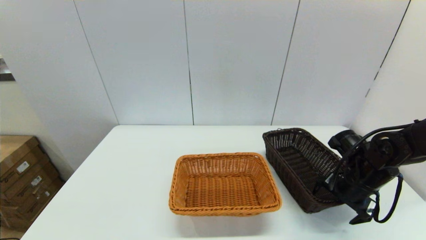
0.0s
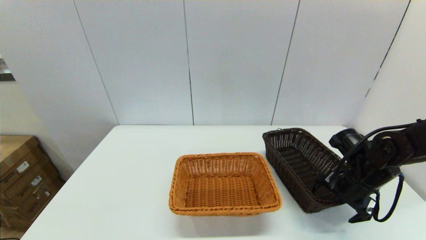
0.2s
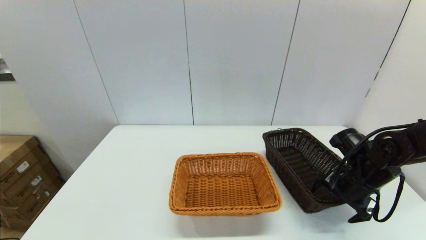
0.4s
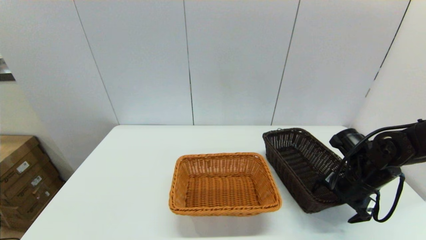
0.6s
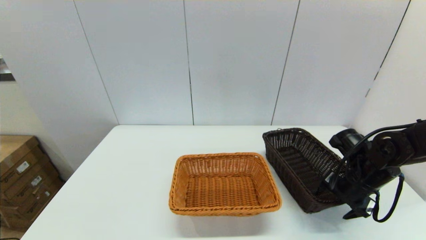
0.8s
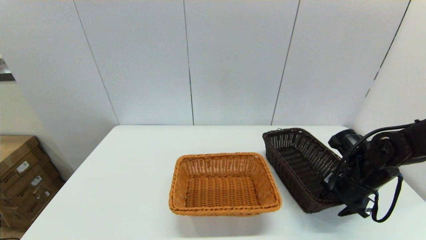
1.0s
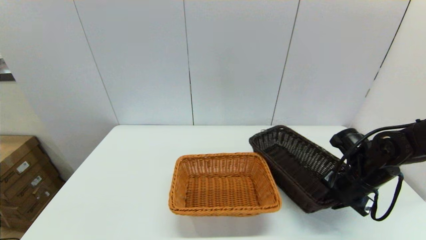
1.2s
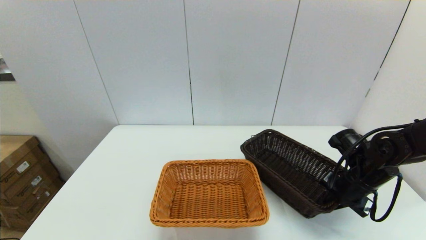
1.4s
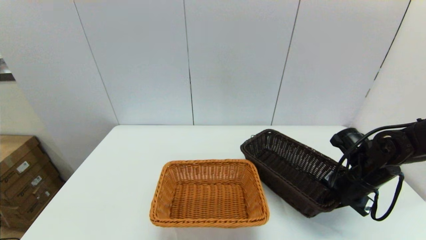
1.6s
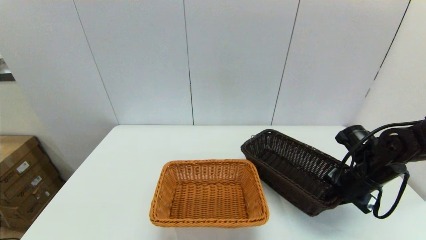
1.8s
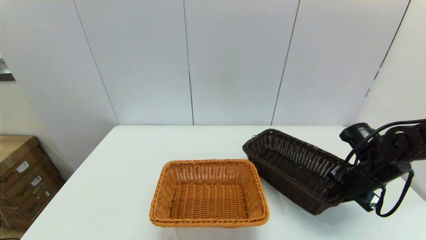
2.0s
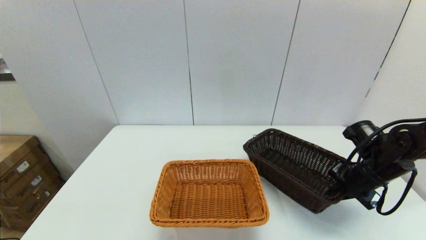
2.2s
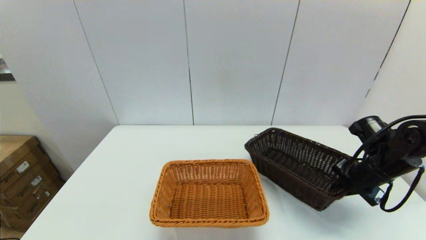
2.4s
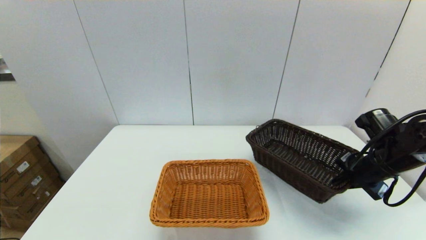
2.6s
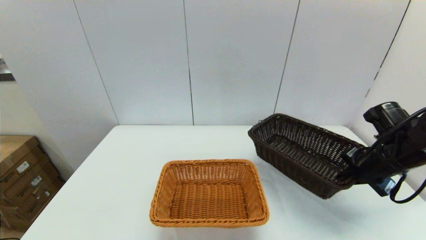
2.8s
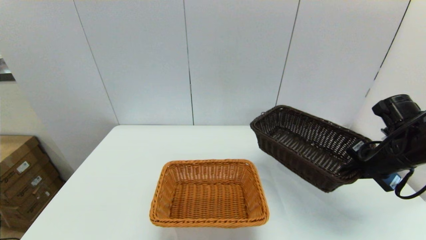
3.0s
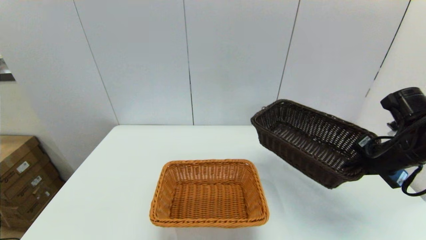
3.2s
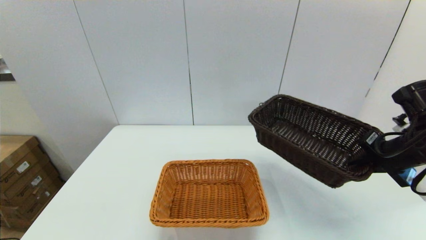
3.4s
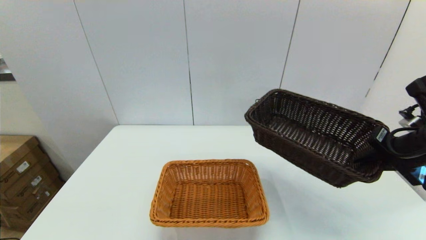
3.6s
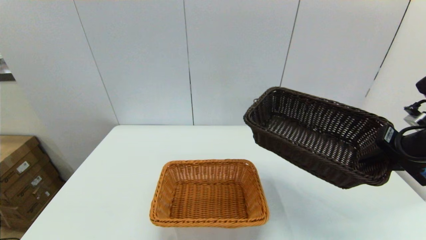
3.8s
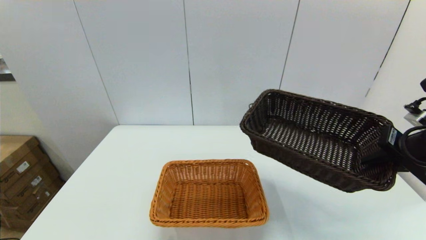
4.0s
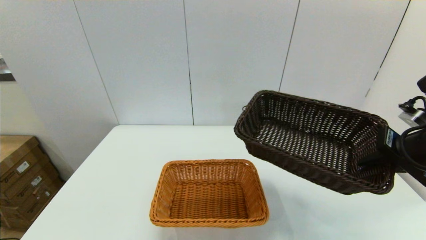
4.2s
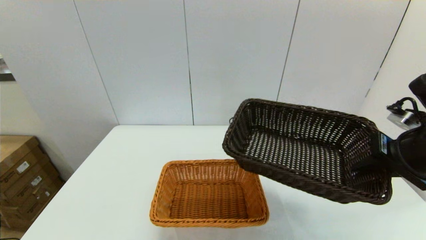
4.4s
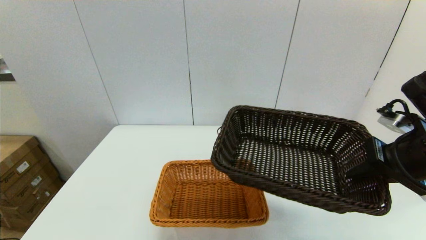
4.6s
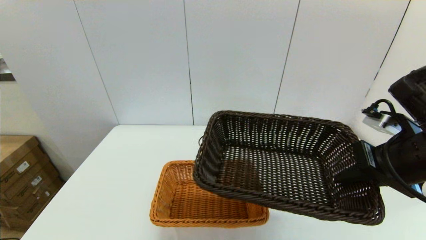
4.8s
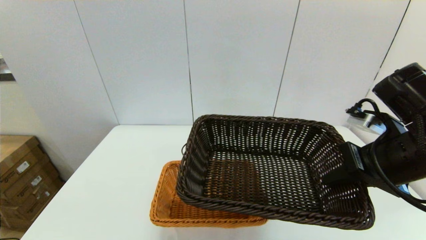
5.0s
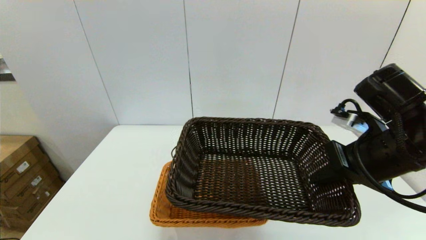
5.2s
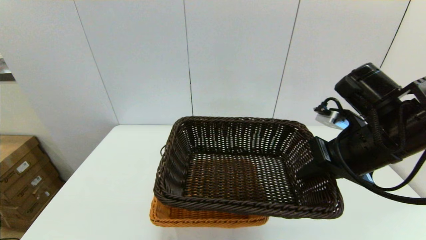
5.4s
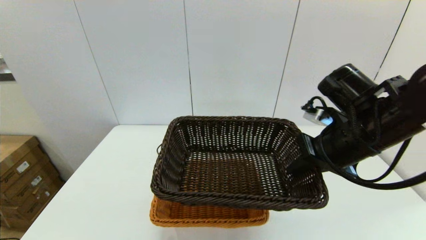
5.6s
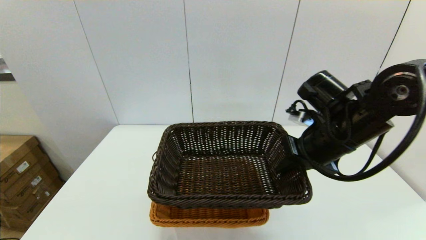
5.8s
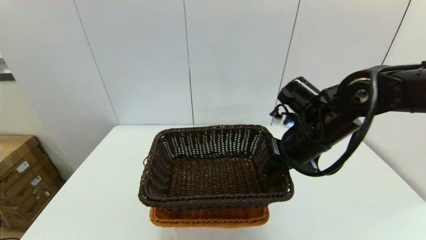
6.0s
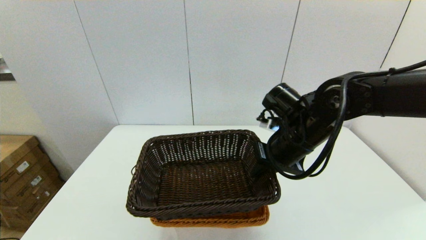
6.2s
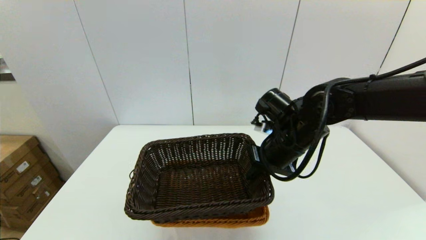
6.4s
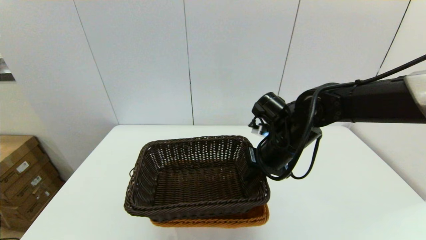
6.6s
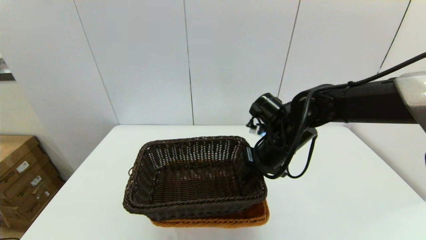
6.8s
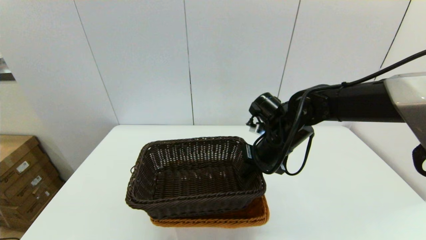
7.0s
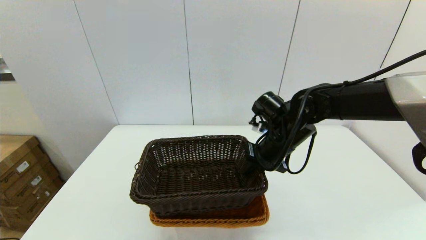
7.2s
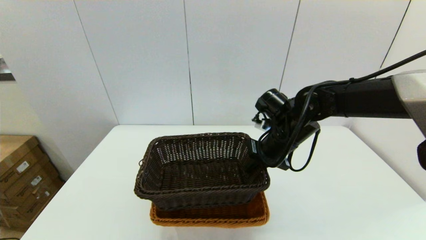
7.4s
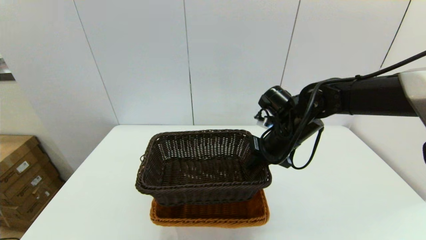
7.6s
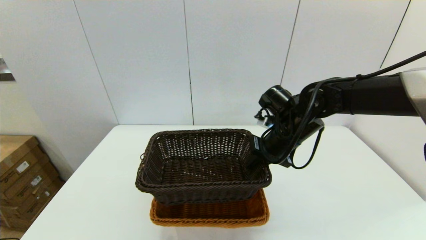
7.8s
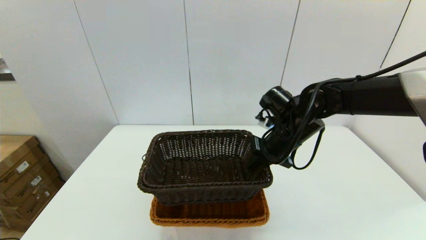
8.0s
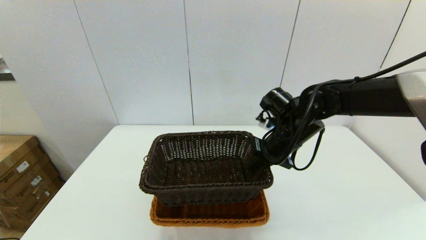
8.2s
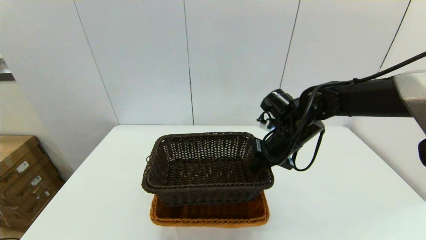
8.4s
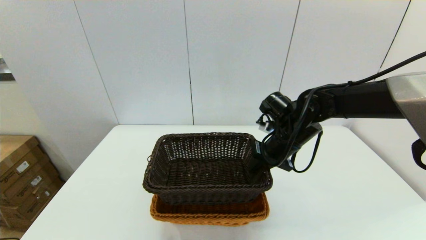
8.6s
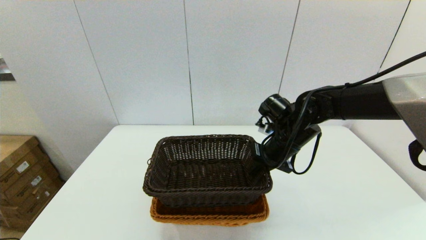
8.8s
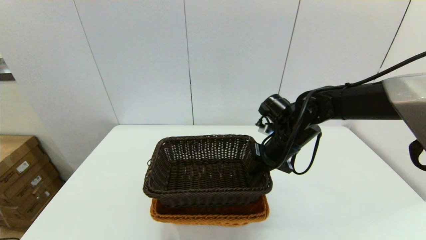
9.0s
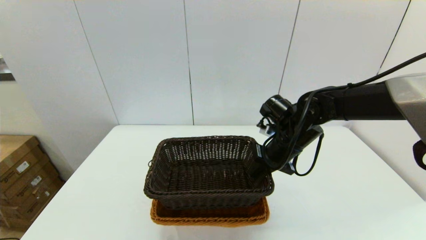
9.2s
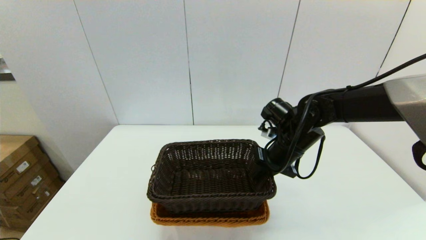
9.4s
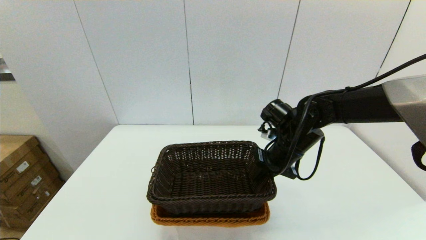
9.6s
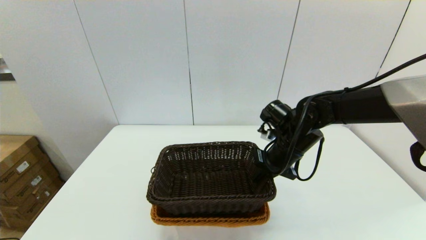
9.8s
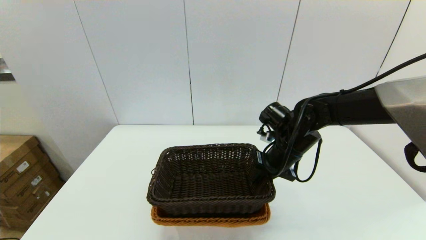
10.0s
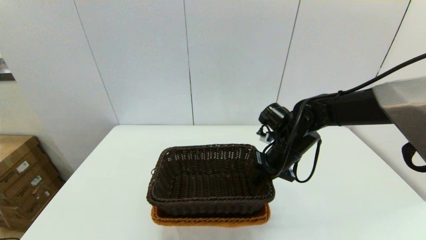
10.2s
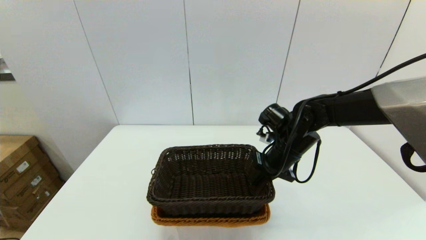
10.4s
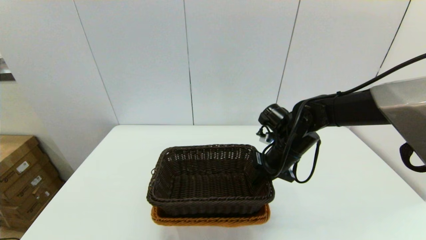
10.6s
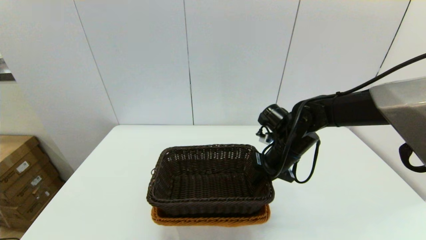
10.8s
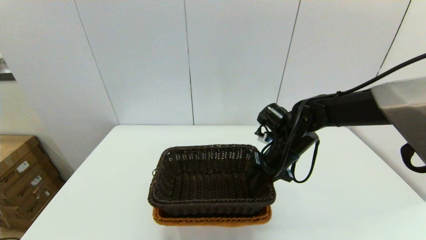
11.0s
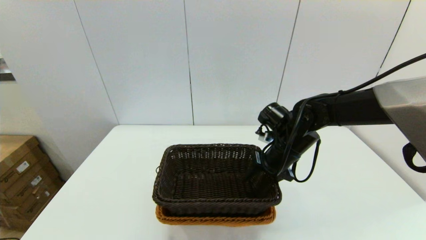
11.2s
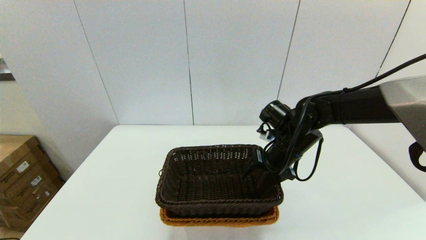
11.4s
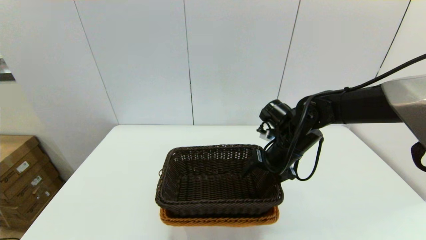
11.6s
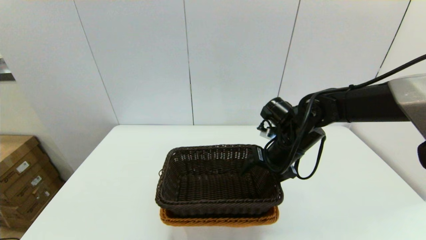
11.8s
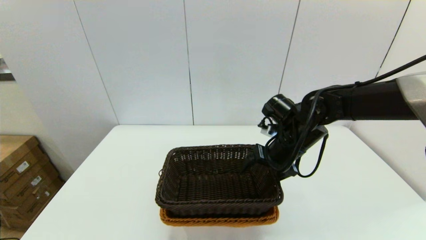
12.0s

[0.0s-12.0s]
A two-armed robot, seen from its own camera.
Task of the whole recording: stack a basket on top of another basket.
0.0s to 1.6s: The right gripper closes up.
1.6s to 3.0s: The right gripper heads upward, covering about 10 cm.
3.0s to 4.4s: The right gripper is displaced upward and backward by roughly 10 cm.
4.4s to 6.0s: The right gripper shifts approximately 15 cm to the left and forward.
6.0s to 7.6s: The right gripper changes place by roughly 5 cm.
7.6s to 10.4s: The grippers make only small movements.
10.4s to 12.0s: The right gripper opens its fingers.

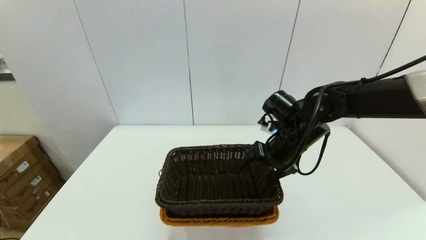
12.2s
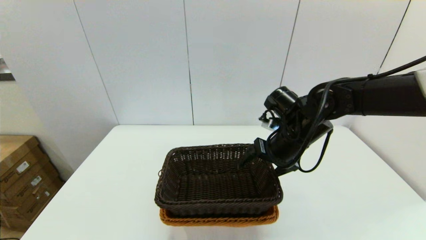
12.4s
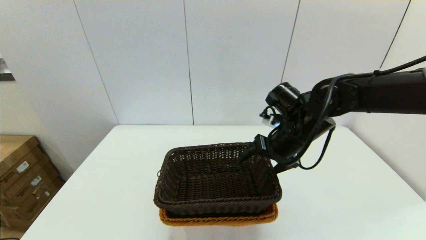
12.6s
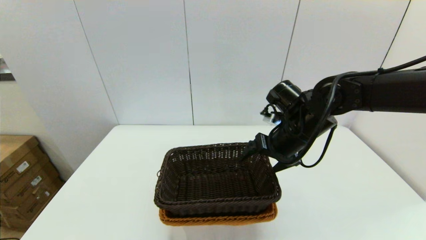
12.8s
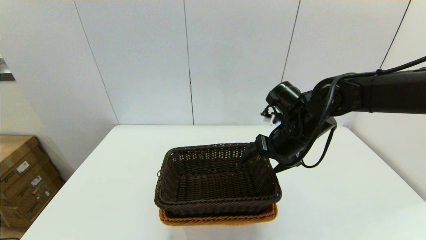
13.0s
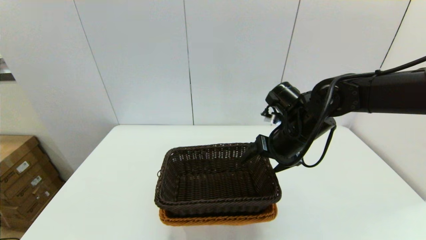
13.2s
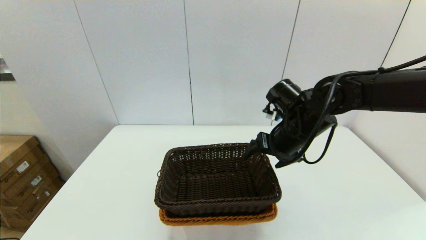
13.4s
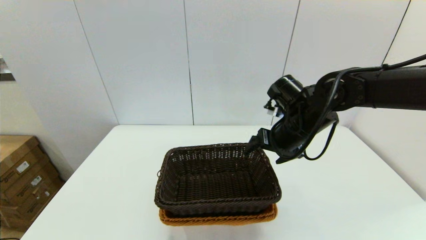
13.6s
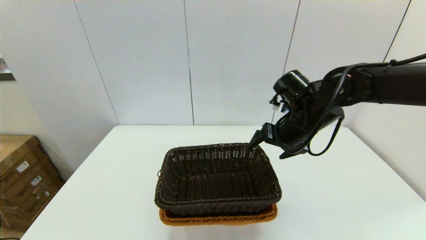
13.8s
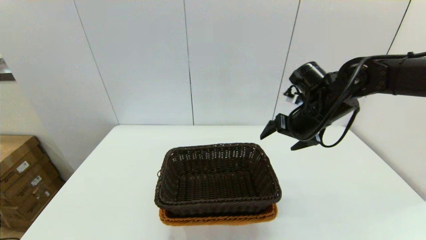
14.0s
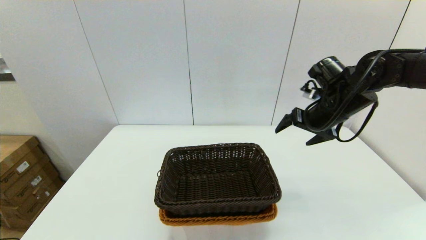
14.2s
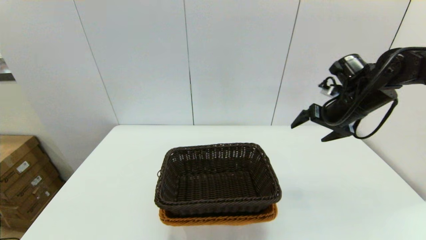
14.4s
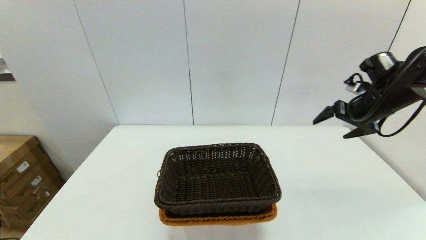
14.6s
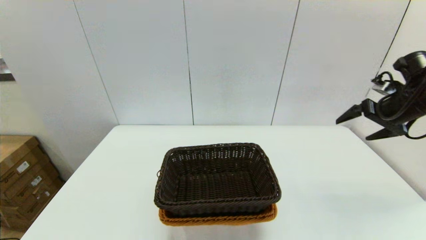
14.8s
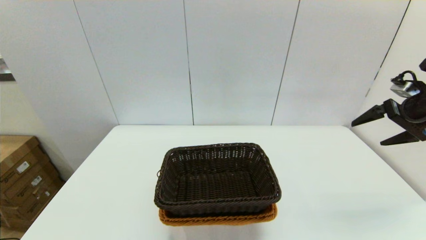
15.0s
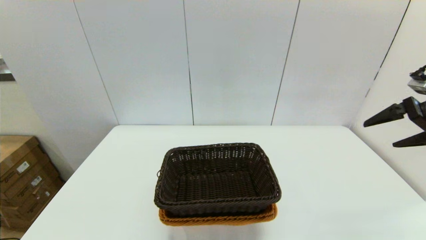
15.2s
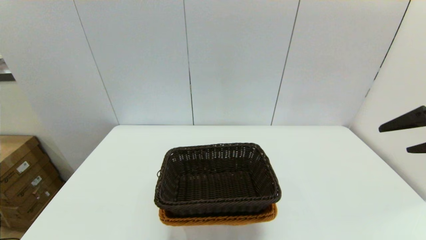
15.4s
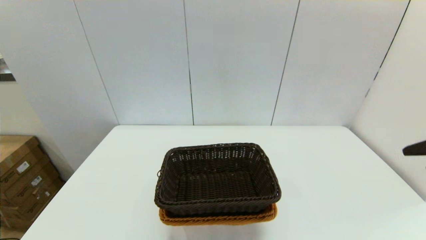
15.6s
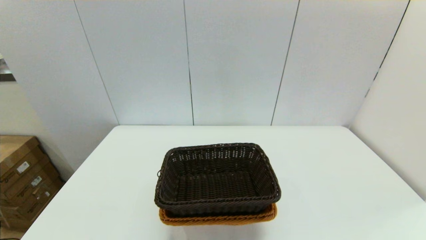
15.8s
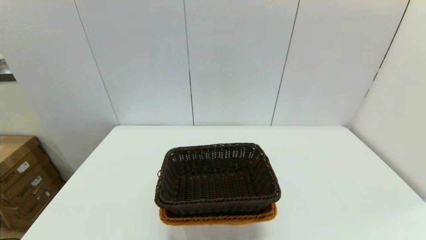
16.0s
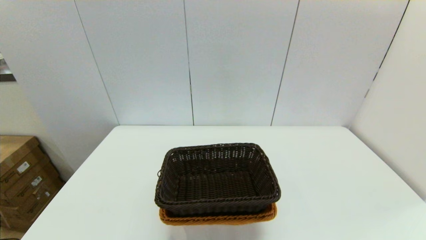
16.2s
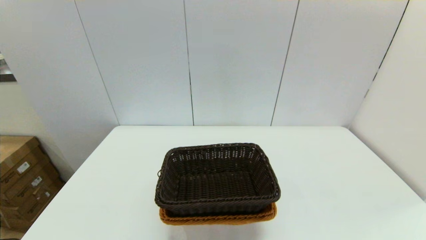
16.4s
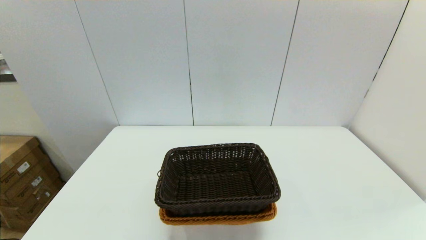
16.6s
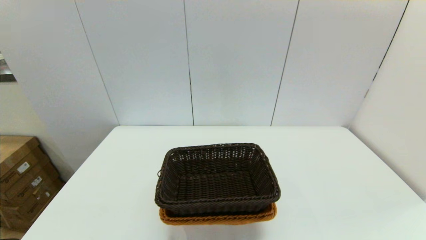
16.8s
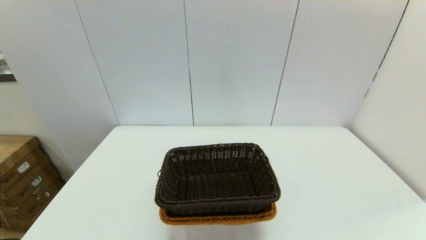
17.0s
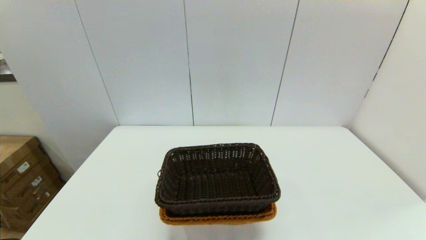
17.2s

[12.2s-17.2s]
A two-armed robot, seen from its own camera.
Task of the whole recording: stack a basket on top of another basket.
12.2s to 13.8s: The grippers stay close to where they were, moving slightly.
13.8s to 15.6s: The right gripper moves backward, to the right and upward, approximately 30 cm.
